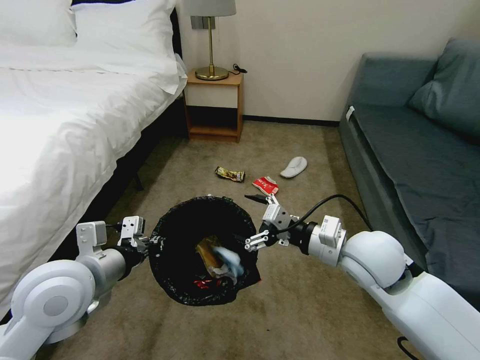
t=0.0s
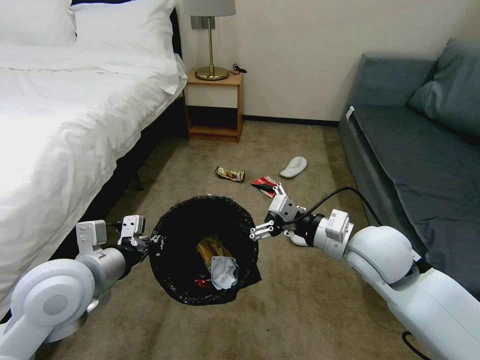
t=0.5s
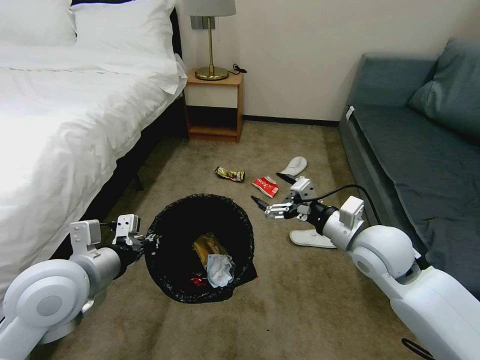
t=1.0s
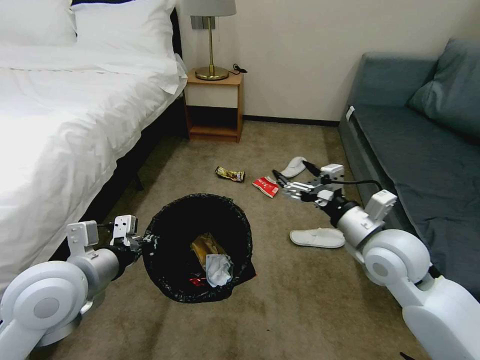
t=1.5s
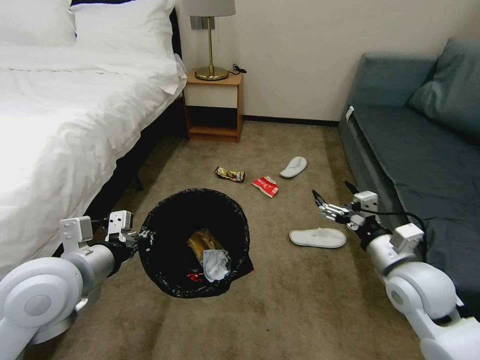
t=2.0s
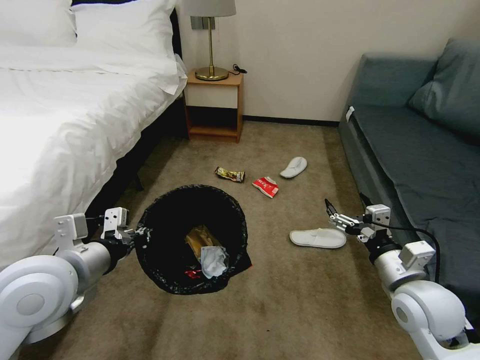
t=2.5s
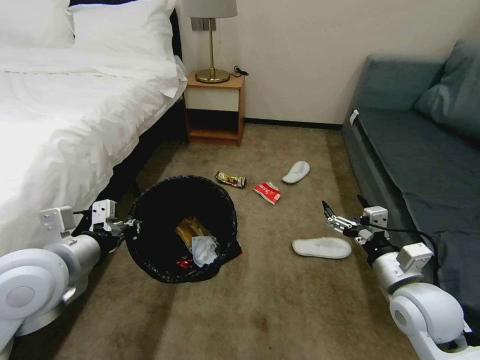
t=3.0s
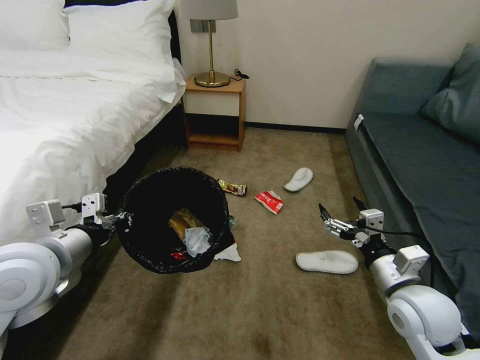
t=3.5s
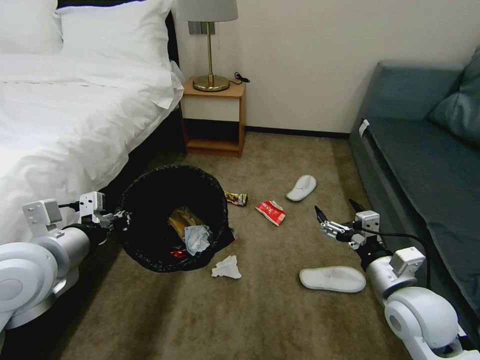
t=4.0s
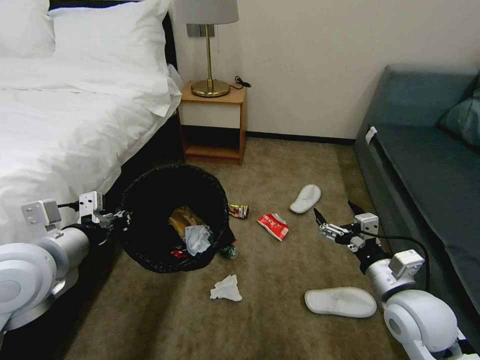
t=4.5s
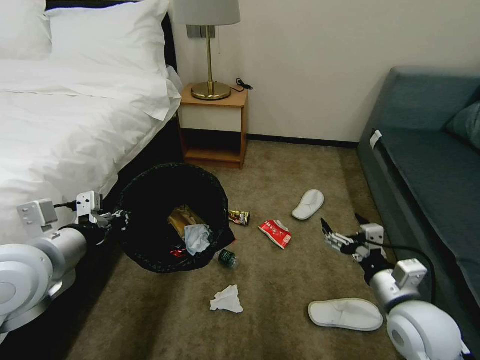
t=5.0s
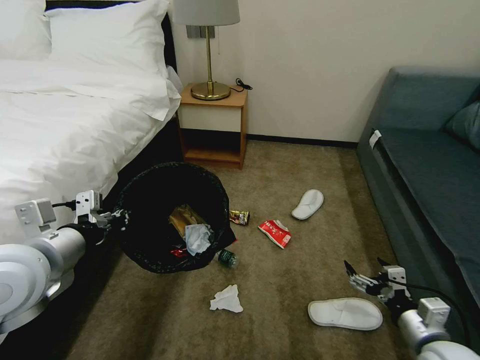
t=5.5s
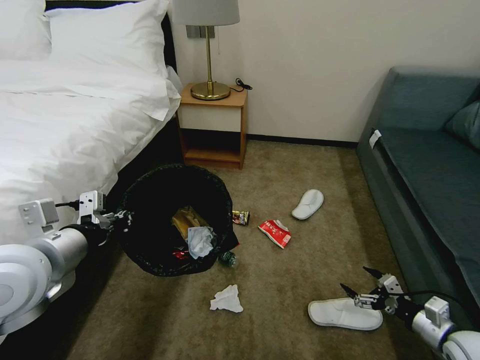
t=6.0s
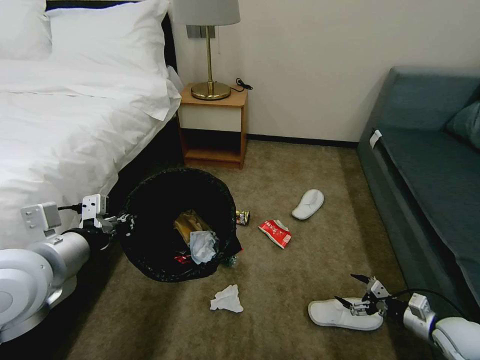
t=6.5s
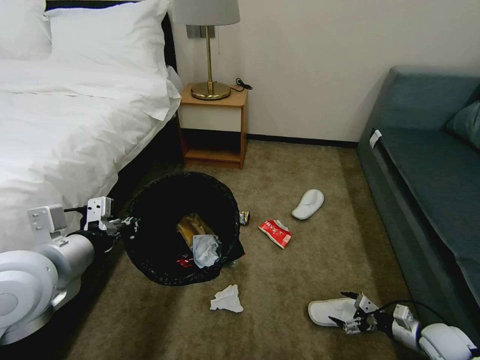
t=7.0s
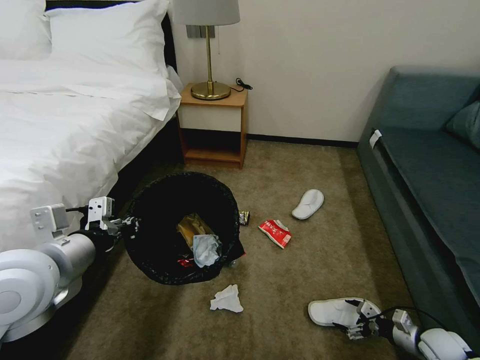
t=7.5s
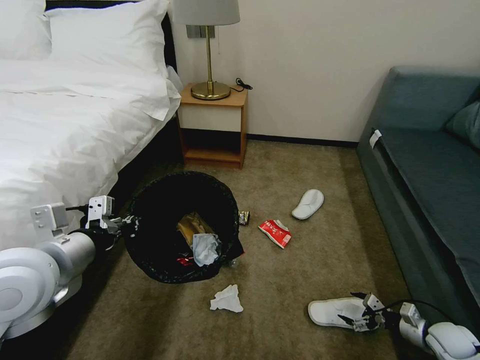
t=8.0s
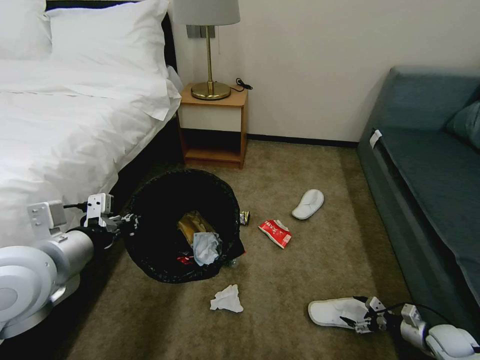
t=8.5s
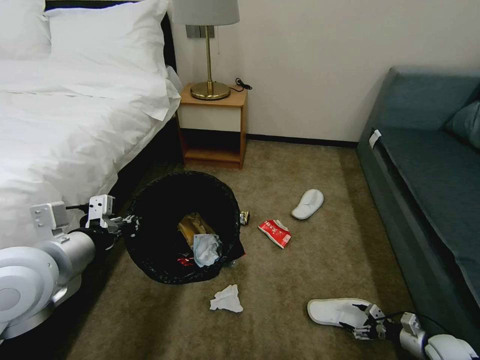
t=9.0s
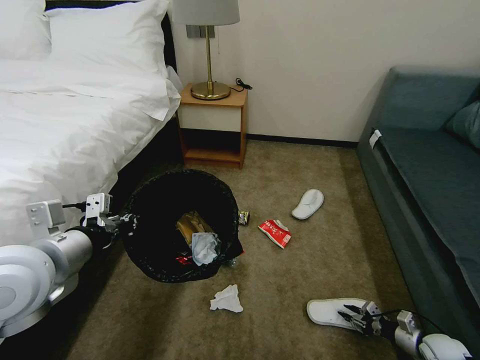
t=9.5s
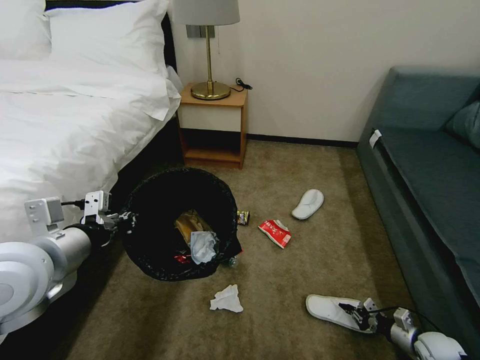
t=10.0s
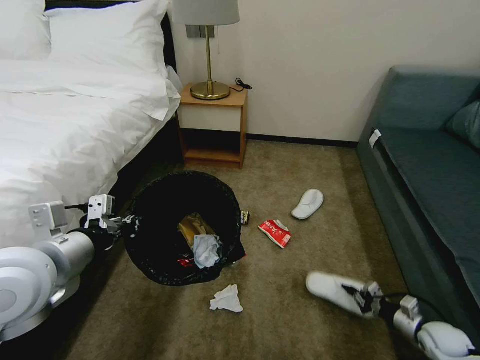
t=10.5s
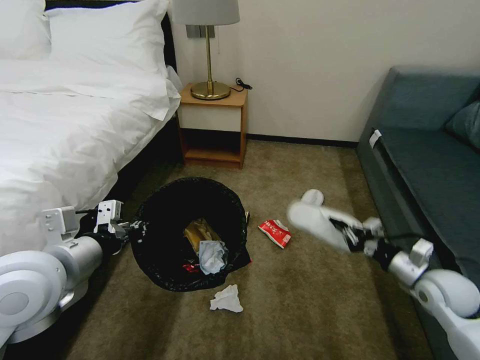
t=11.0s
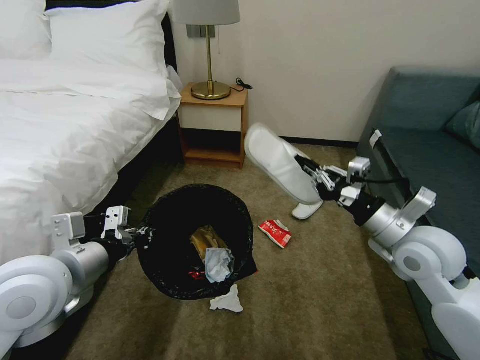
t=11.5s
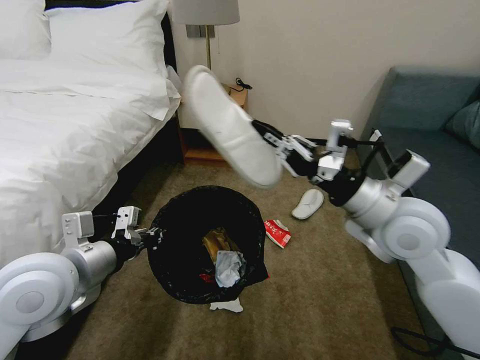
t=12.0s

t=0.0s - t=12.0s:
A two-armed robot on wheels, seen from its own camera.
Task of the whole recording: Pick up the trash bin, then pick up the garbage on the floor and place it into the trash bin.
t=0.0s - t=2.0s: The right gripper travels to the right by about 10 cm.
t=4.0s - t=6.0s: The right gripper moves to the right and downward, some 20 cm.
t=6.0s - t=8.0s: The right gripper goes about 10 cm downward and to the right.
t=8.0s - t=10.0s: The right gripper heads downward, covering approximately 5 cm, and closes its fingers.
t=10.0s - t=12.0s: The right gripper travels upward and to the left by roughly 50 cm.

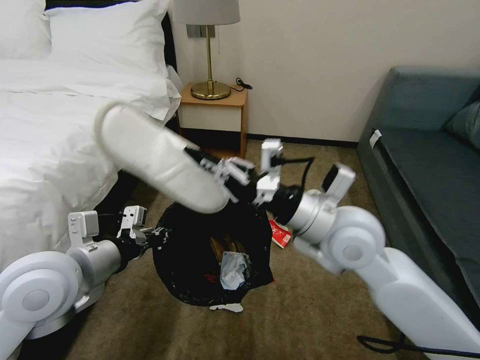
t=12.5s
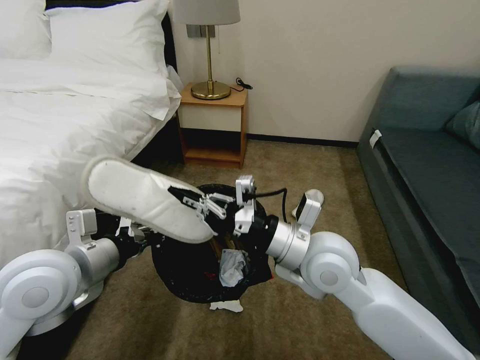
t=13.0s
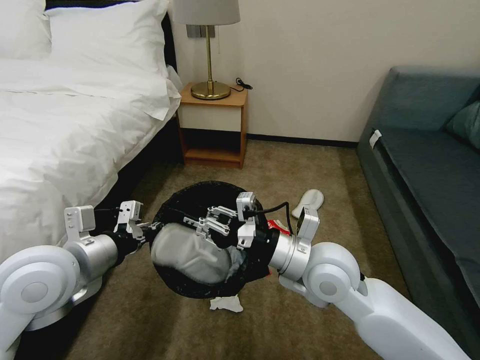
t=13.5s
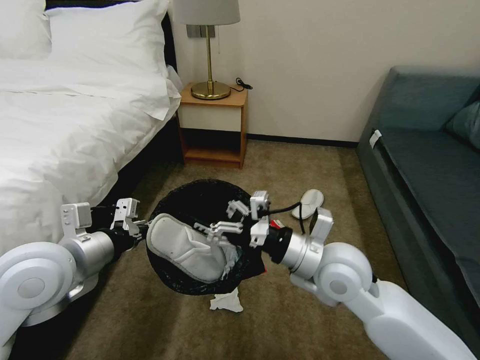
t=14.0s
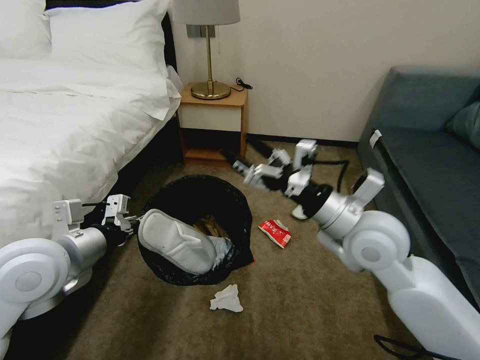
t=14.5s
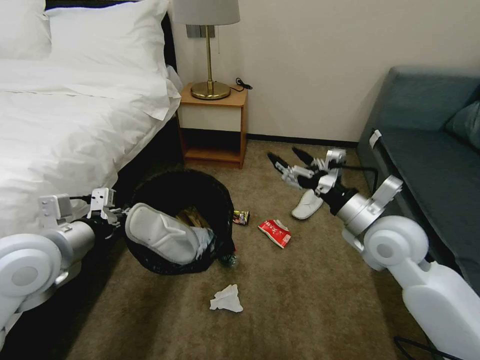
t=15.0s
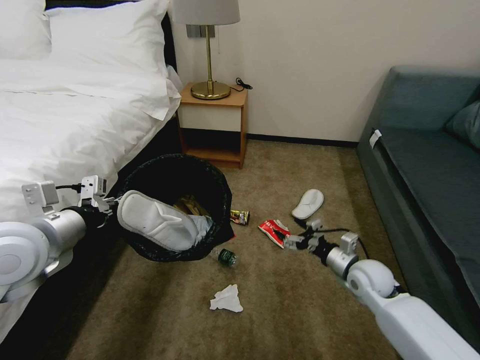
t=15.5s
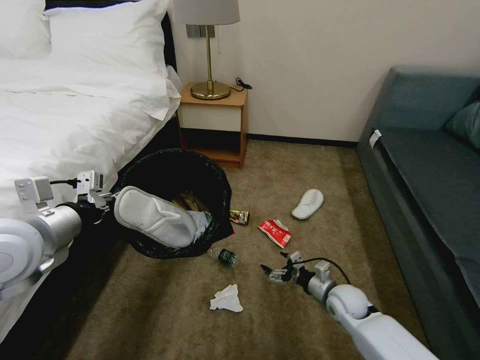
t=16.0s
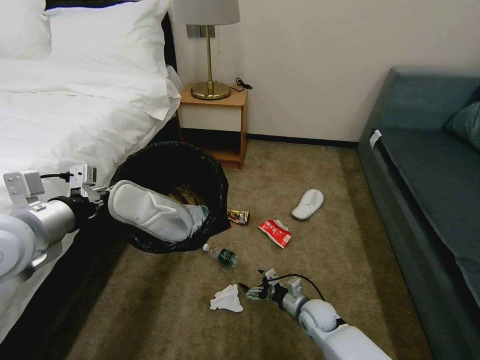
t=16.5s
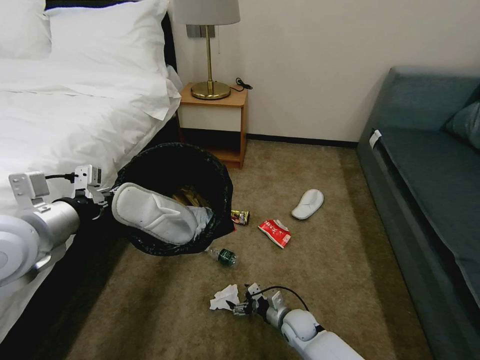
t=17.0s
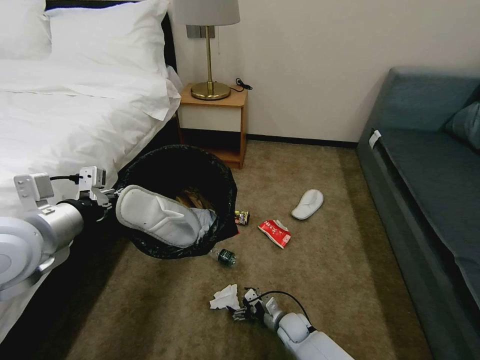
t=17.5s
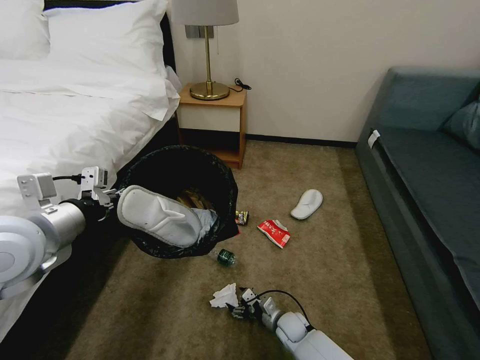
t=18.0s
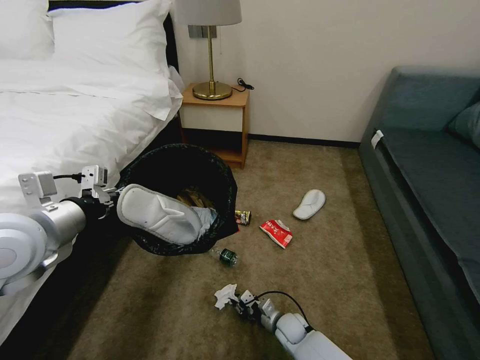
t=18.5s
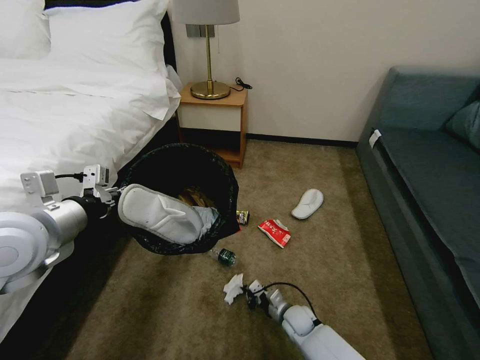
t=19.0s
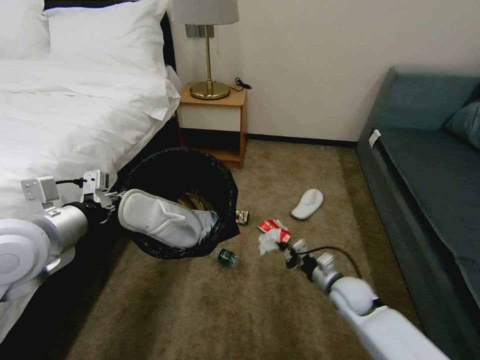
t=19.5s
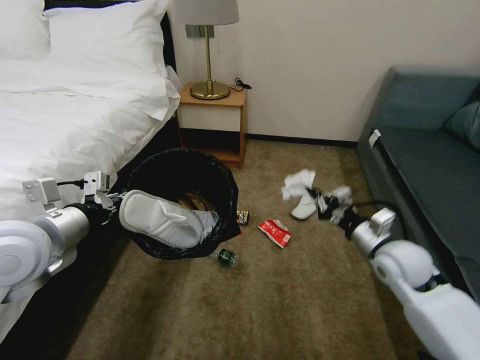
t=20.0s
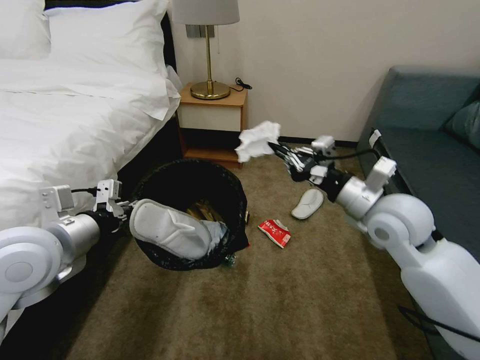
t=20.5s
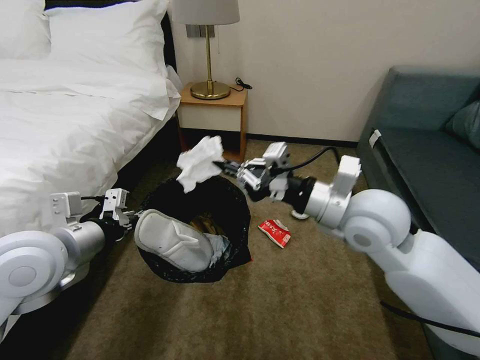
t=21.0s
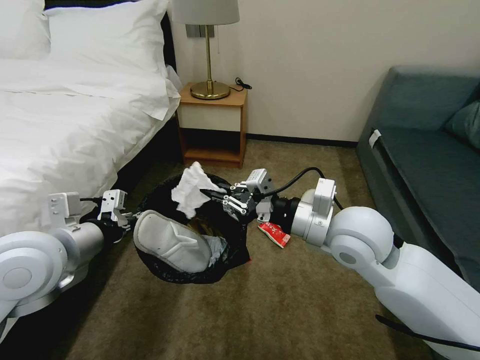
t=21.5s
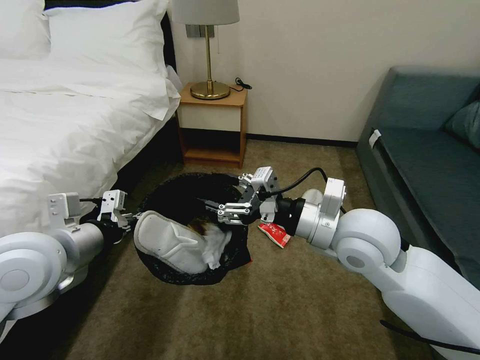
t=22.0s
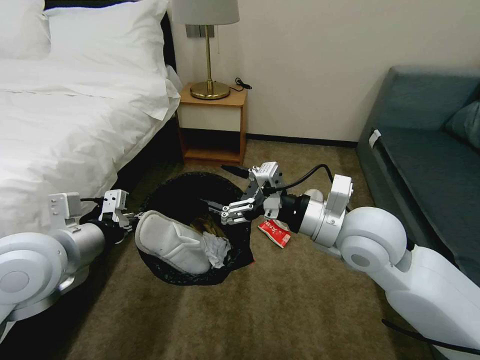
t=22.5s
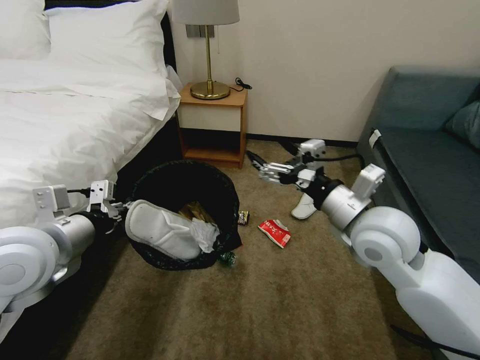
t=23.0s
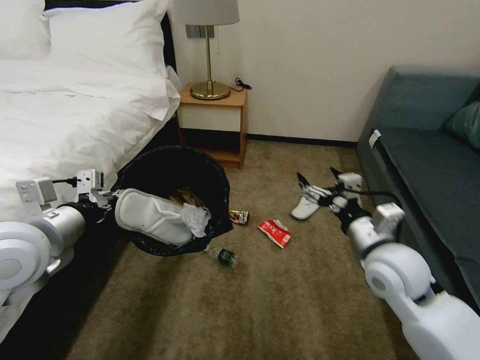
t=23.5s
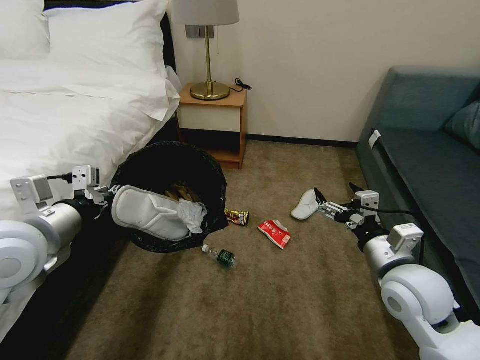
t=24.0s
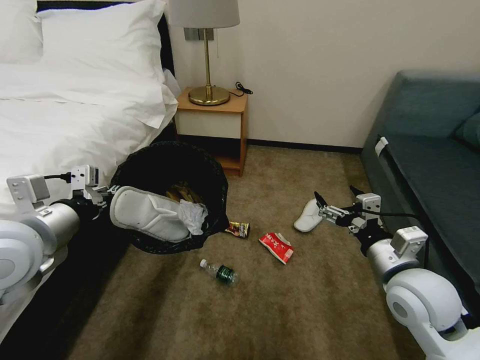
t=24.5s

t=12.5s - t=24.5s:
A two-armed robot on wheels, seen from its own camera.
Task of the whole recording: Pick up the trash bin, then pick up the garbage on the floor and place it into the trash bin.
t=12.5s - t=14.5s: The right gripper goes about 5 cm to the right, and opens.
t=14.5s - t=16.5s: The left gripper changes place by about 5 cm, and closes; the right gripper travels downward by roughly 40 cm.
t=16.5s - t=18.5s: The right gripper shifts about 10 cm downward and to the left, and closes up.
t=18.5s - t=20.5s: The right gripper travels upward by roughly 50 cm.
t=20.5s - t=22.5s: The right gripper travels to the left by roughly 10 cm, and opens its fingers.
t=22.5s - t=24.5s: The right gripper travels to the right, downward and backward by some 15 cm.

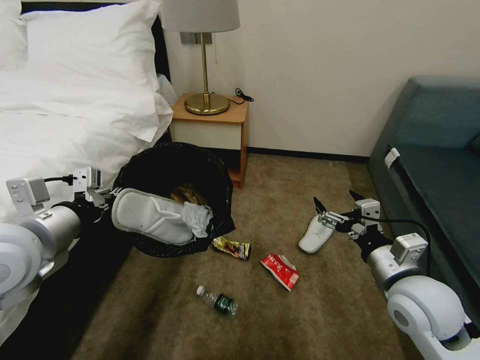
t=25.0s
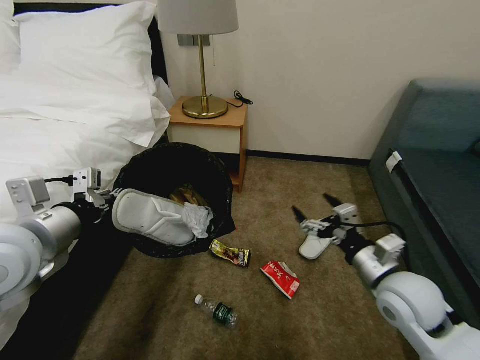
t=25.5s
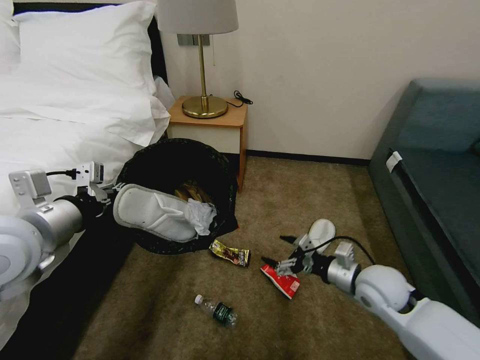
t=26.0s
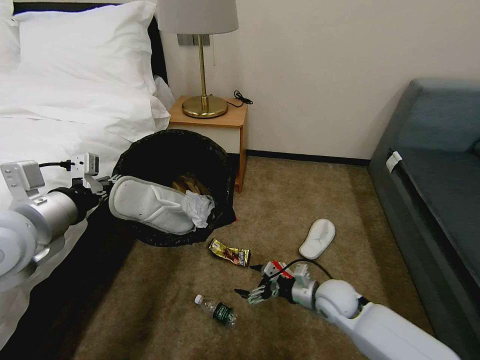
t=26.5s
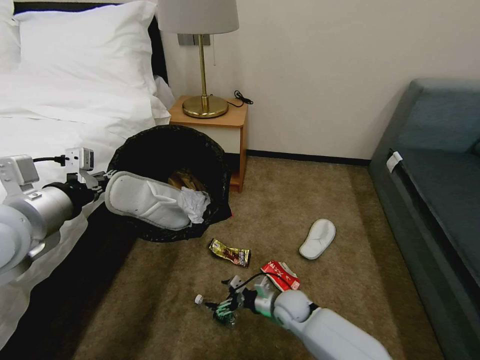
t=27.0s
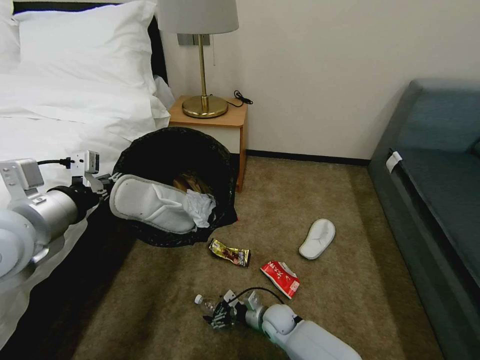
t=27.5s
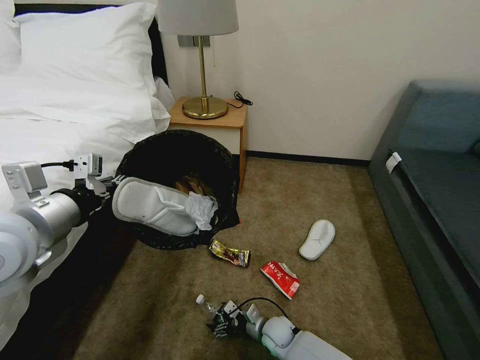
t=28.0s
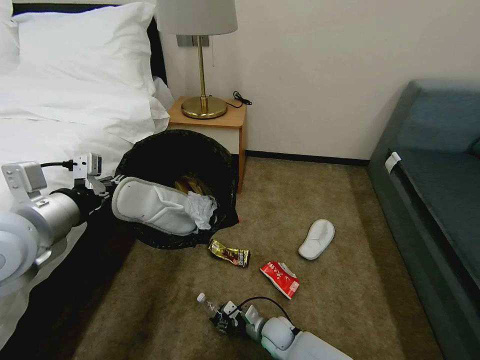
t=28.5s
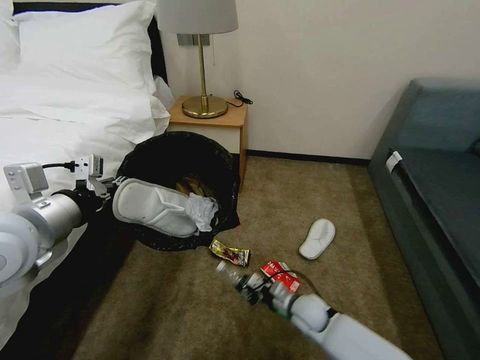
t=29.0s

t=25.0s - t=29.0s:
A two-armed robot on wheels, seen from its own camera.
Task of the whole recording: Pick up the trash bin, then pick up the garbage on the floor and place it into the trash bin.
t=25.0s - t=27.0s: The right gripper heads downward and to the left, covering about 30 cm.
t=27.0s - t=29.0s: The right gripper reaches approximately 10 cm downward, then returns, and closes.
